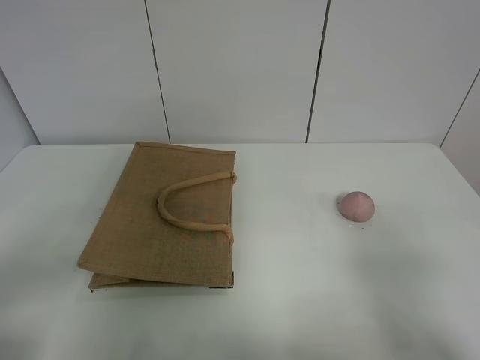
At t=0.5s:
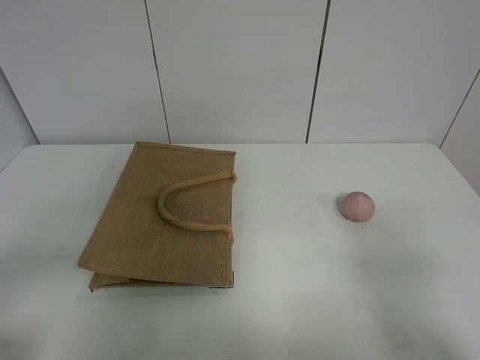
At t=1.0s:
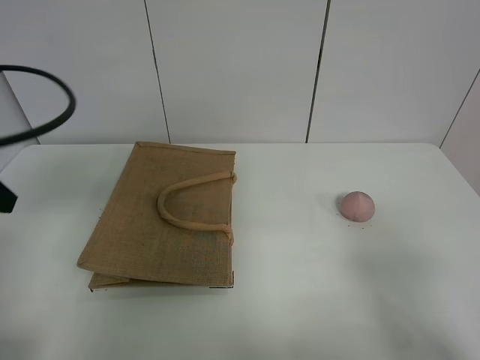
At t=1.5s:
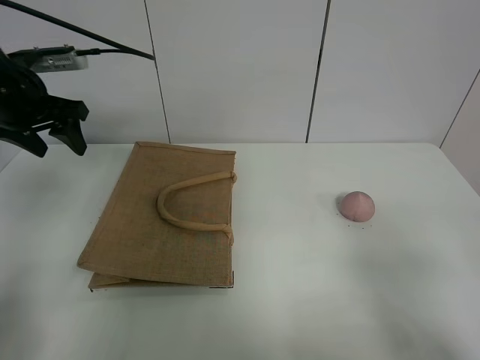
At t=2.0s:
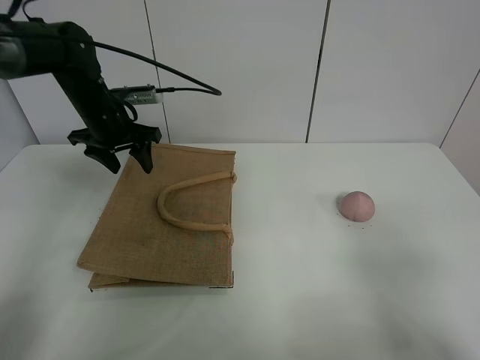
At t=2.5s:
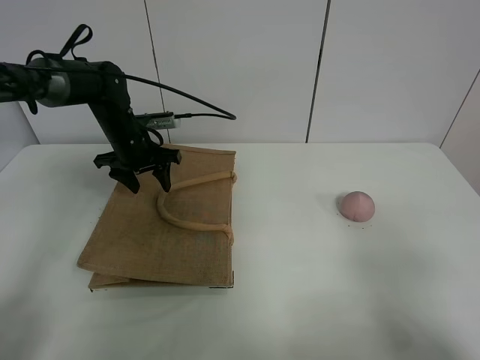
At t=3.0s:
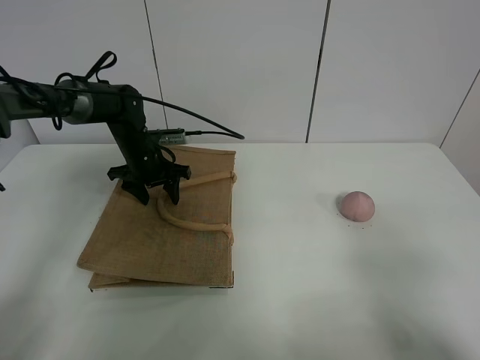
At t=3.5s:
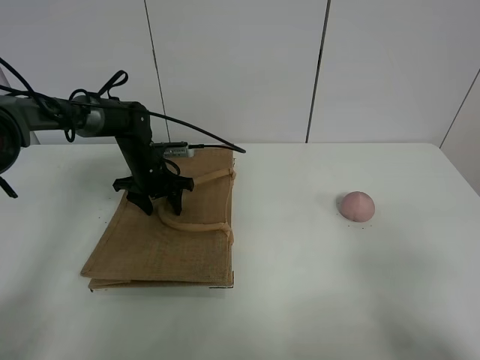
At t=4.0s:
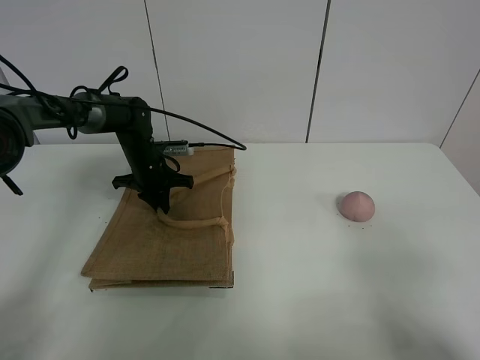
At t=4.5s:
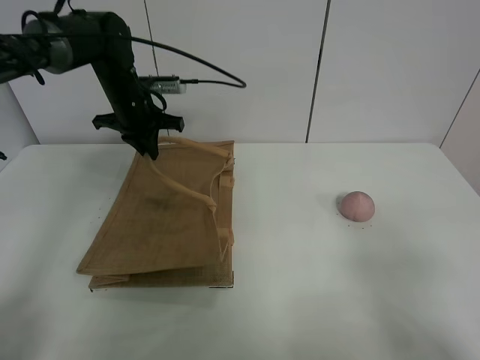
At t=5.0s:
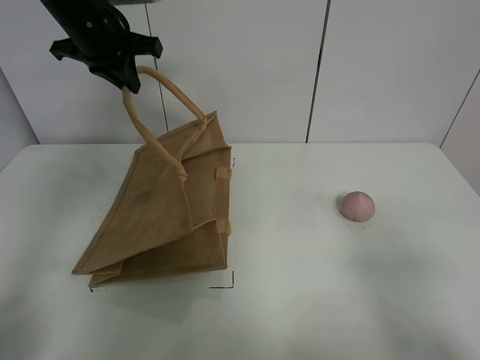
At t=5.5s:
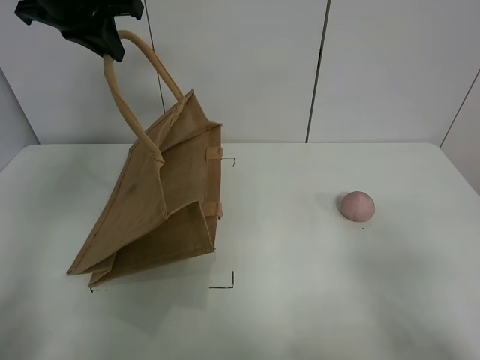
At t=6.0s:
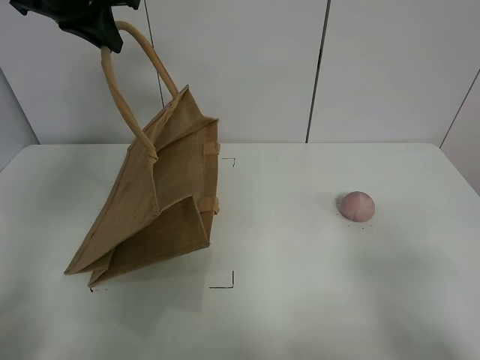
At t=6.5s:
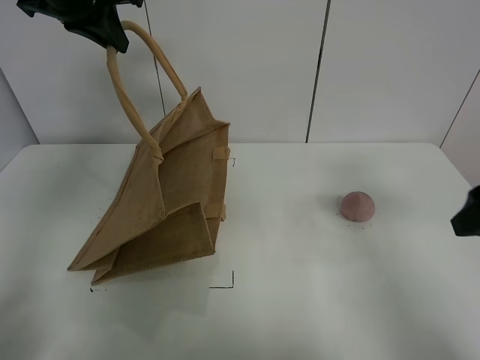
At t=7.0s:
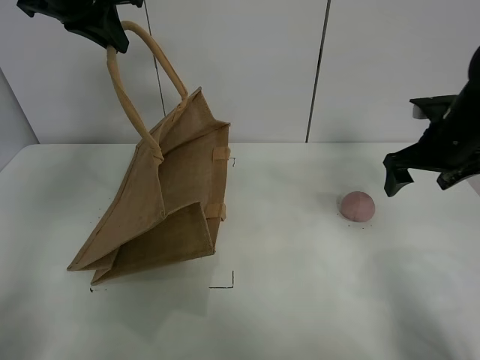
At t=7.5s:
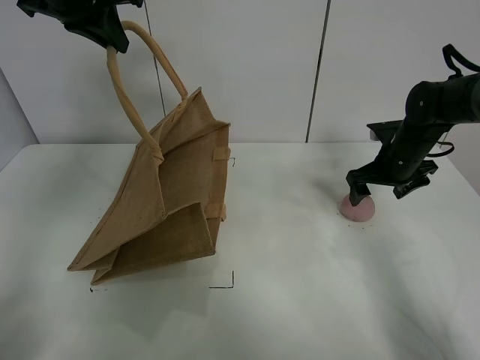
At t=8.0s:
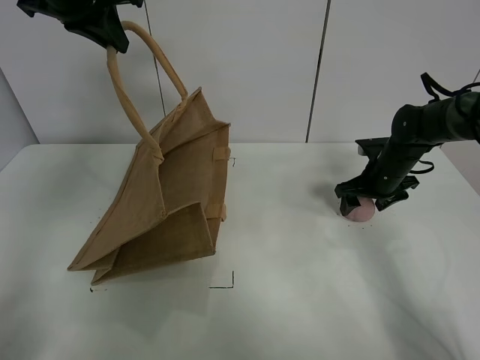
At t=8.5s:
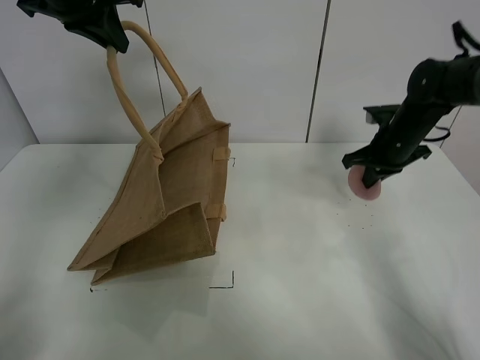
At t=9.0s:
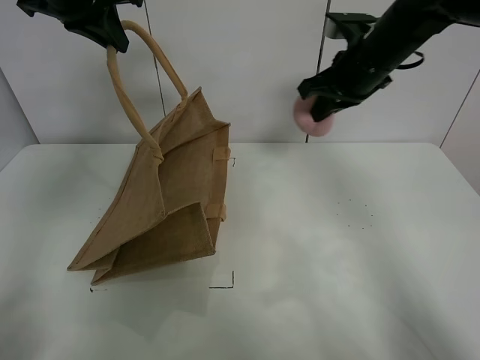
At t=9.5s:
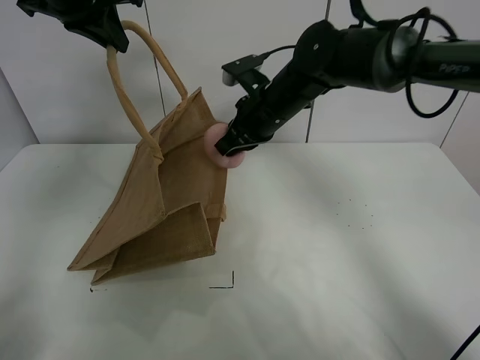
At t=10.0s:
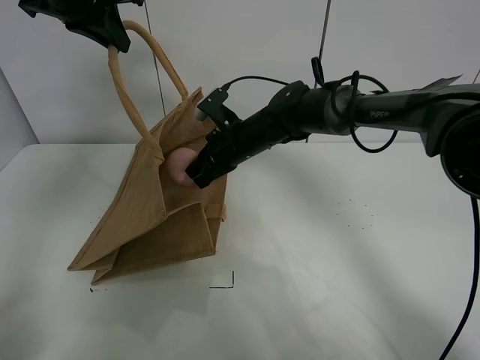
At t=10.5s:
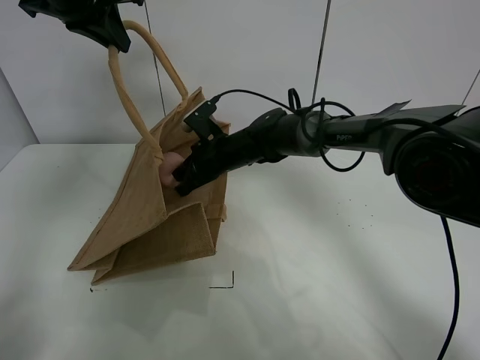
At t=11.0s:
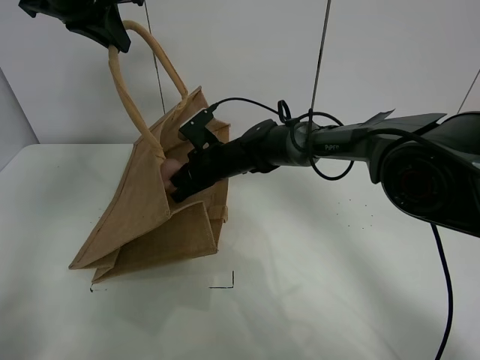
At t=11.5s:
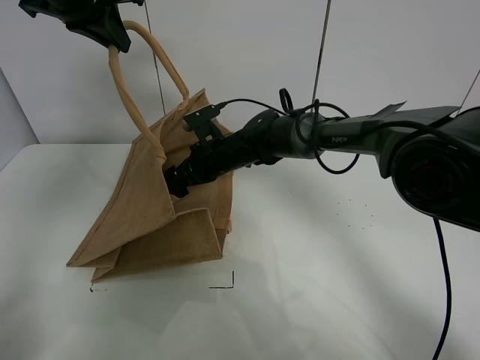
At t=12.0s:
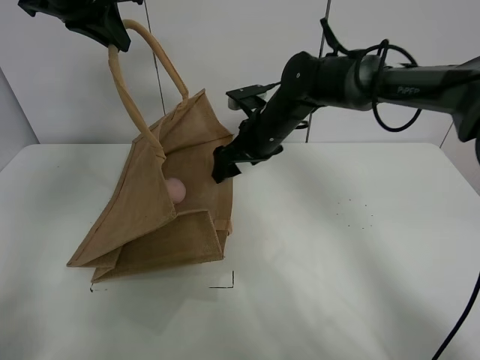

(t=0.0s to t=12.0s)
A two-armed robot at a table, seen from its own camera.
Task of the whole recording: open the brown linen bag and put the peach in the bag.
Step, t=0.0s - t=6.0s: Lift the handbag with left gripper.
Step, t=6.5s - t=8.0s: Grasp the peach with right gripper.
Step, t=8.5s - t=12.0s: Place the peach in the handbag with right gripper.
t=2.0s - t=4.0s: The left gripper shifts roughly 15 cm downward, and closes its fingers.
t=4.0s - t=6.0s: The left gripper heads upward, covering roughly 30 cm.
t=6.0s - t=8.0s: The right gripper shifts roughly 40 cm forward.
t=8.0s - t=10.0s: The right gripper goes about 25 cm to the left, and closes its fingers.
t=10.0s - t=12.0s: The right gripper opens.

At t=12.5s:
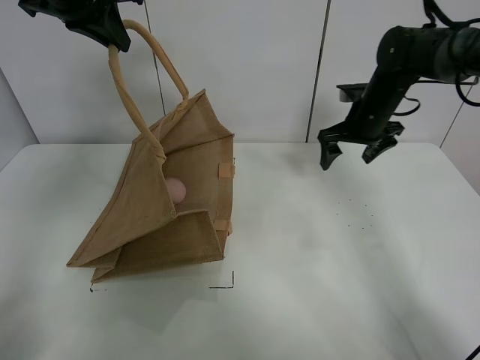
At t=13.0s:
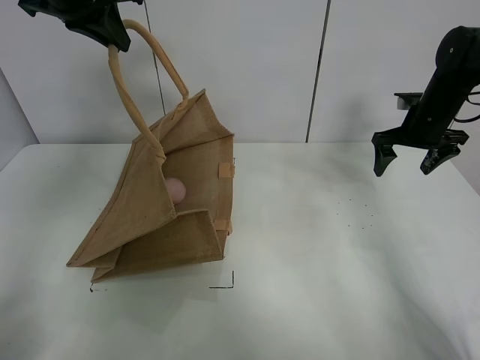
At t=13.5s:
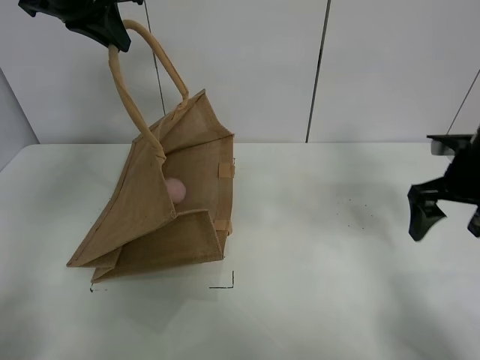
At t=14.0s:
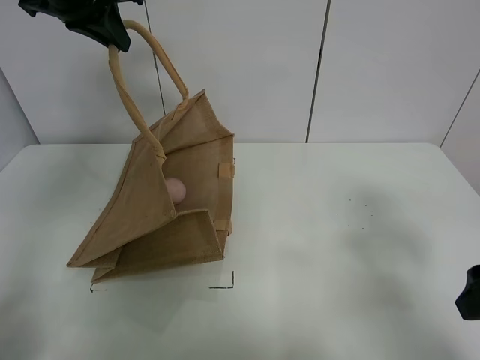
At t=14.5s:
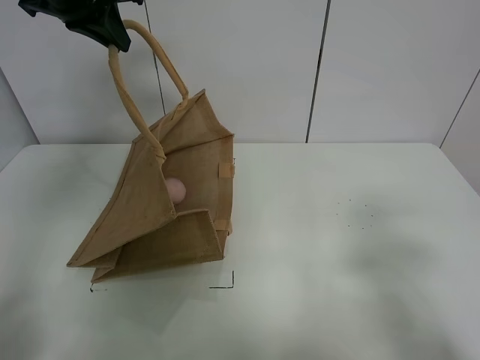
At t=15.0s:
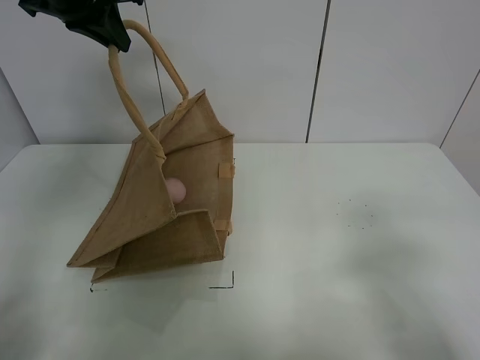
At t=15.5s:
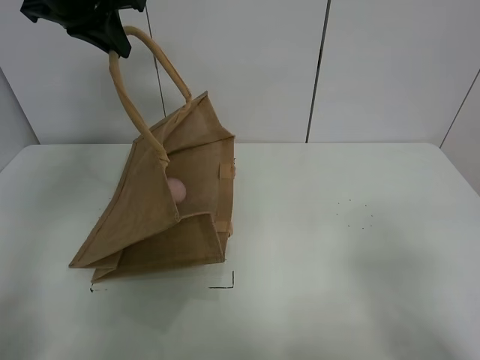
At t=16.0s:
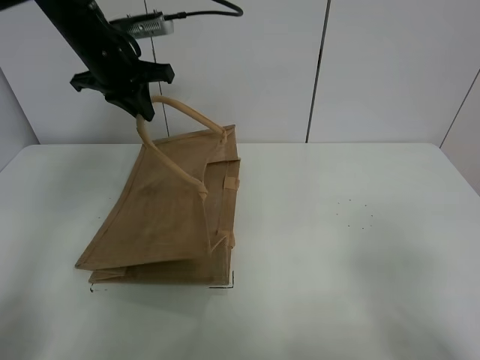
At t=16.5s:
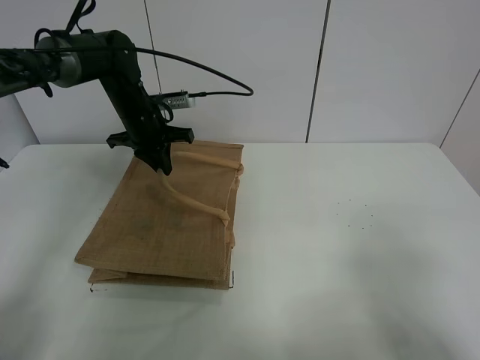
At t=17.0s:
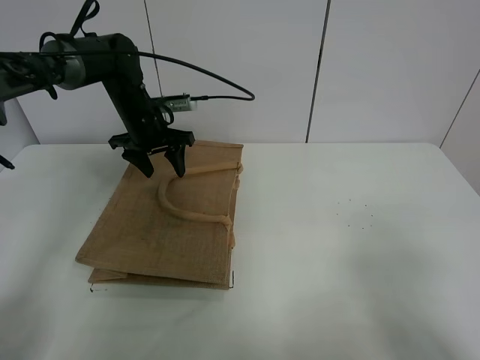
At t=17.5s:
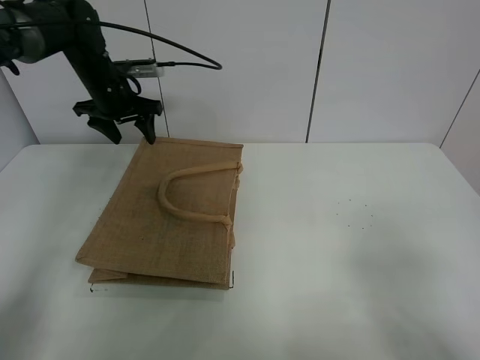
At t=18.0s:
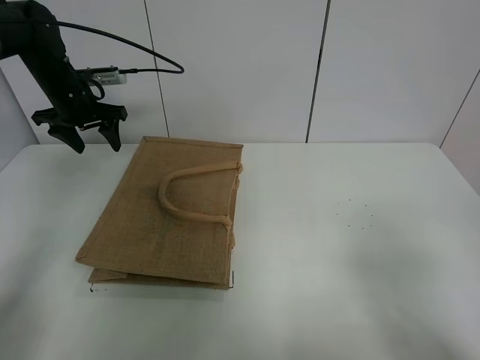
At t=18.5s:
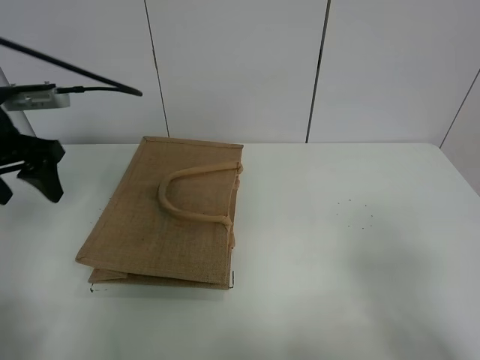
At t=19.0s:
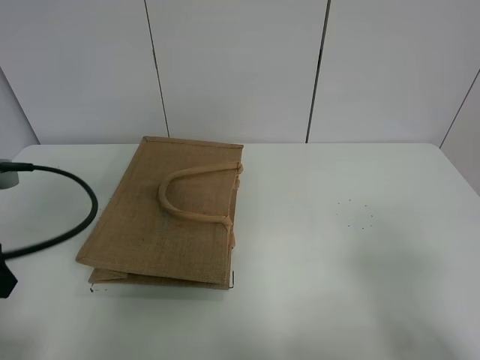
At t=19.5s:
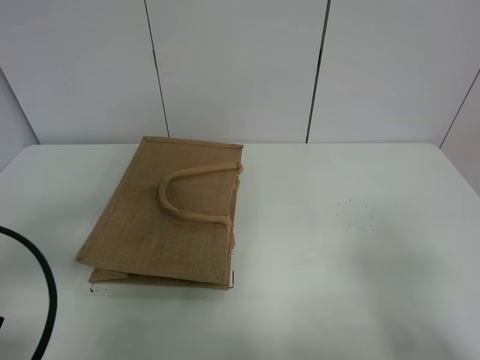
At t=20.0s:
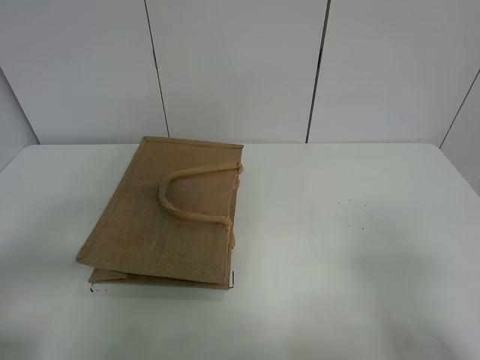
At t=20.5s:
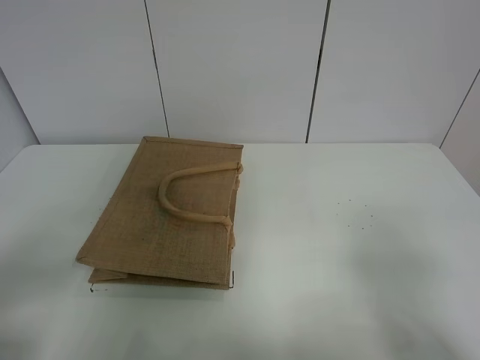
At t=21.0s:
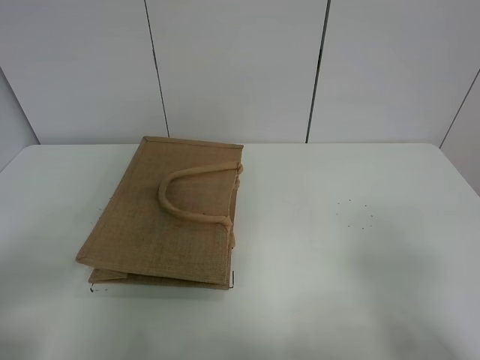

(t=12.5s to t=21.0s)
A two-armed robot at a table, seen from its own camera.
Task of the whole recording: open the brown linen bag and put the peach in the bag.
Step, t=12.5s - t=17.5s: Put down the handbag with left grippe.
t=12.5s - t=14.5s: The right gripper heads backward, covering about 40 cm.
t=14.5s - t=16.5s: The right gripper goes about 5 cm backward. Meanwhile the left gripper is displaced downward by approximately 20 cm.
t=16.5s - t=19.0s: The left gripper shifts some 30 cm backward and to the left, and opens.
t=19.0s - t=21.0s: The left gripper moves backward, about 15 cm.
